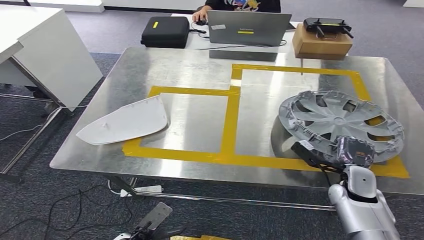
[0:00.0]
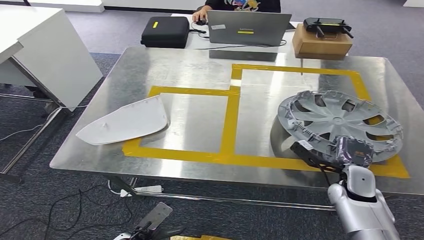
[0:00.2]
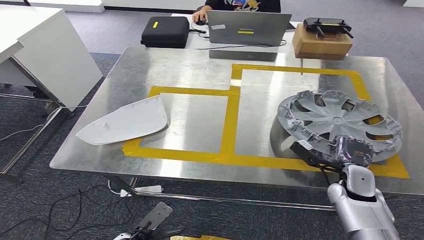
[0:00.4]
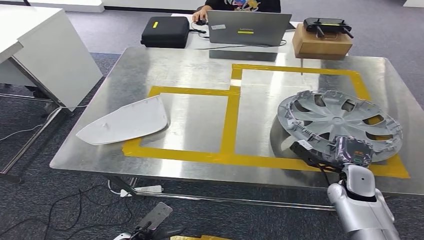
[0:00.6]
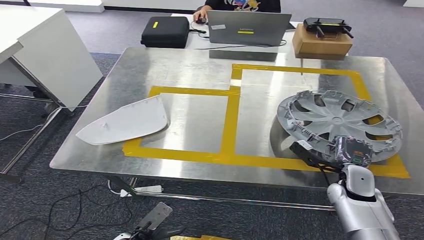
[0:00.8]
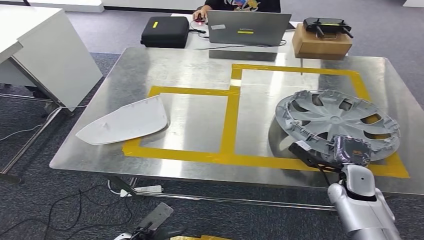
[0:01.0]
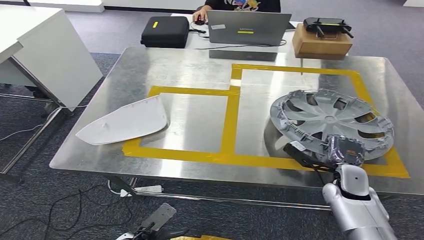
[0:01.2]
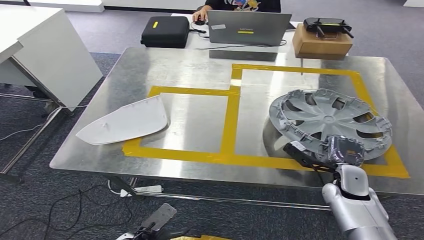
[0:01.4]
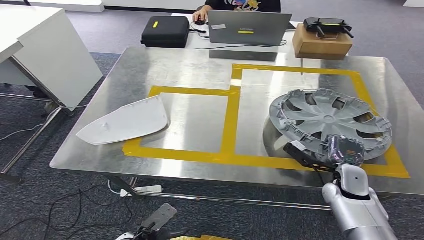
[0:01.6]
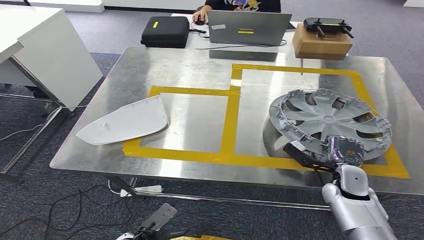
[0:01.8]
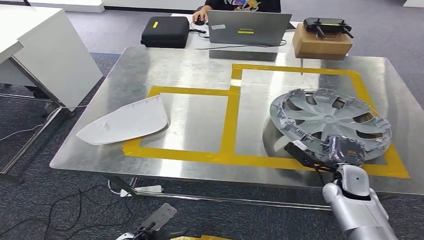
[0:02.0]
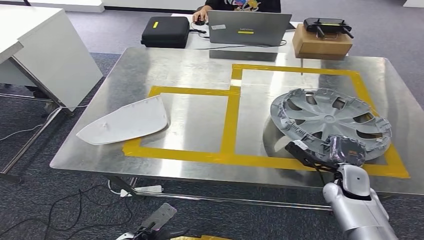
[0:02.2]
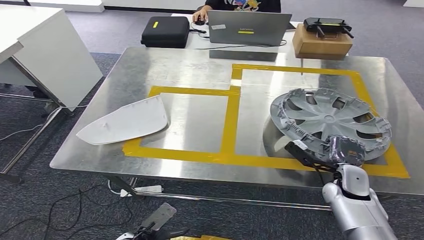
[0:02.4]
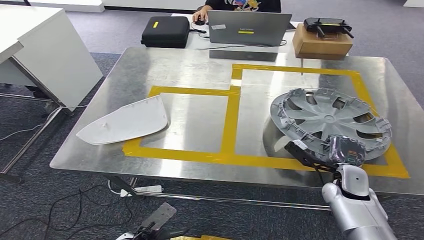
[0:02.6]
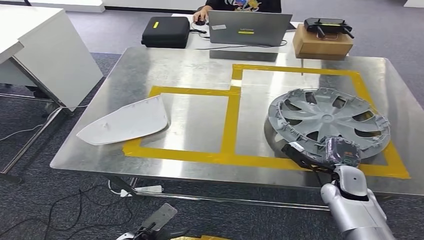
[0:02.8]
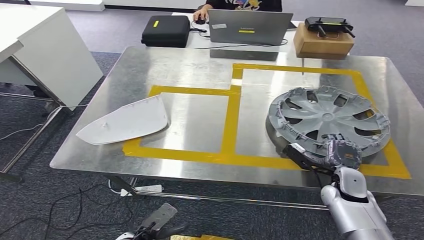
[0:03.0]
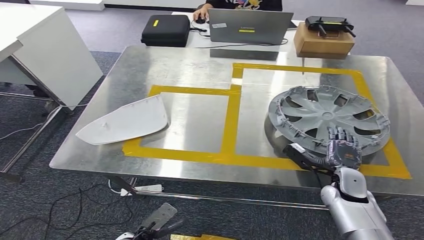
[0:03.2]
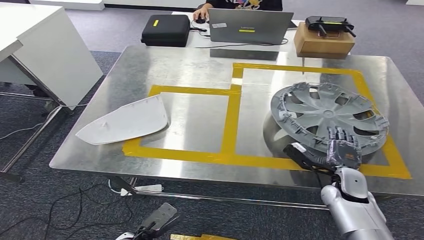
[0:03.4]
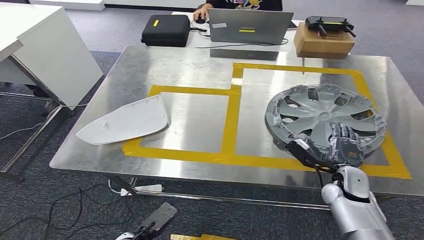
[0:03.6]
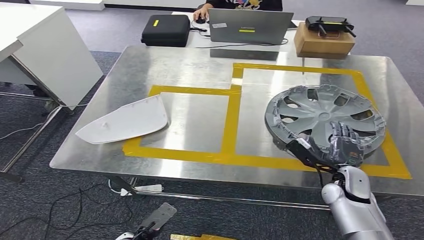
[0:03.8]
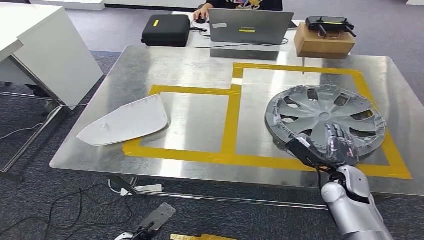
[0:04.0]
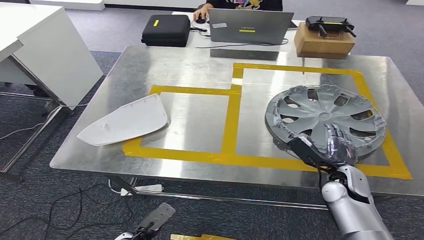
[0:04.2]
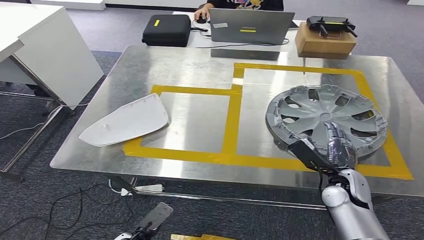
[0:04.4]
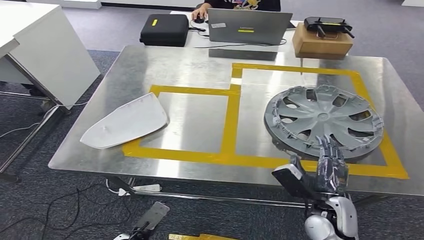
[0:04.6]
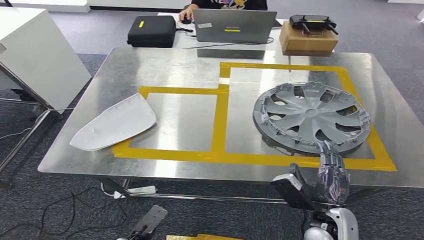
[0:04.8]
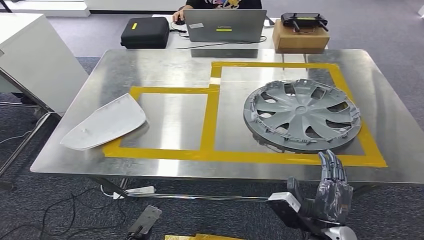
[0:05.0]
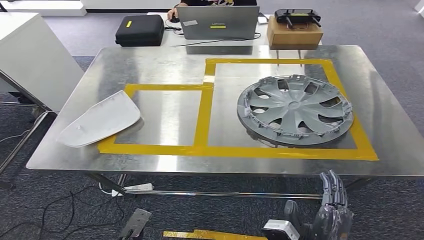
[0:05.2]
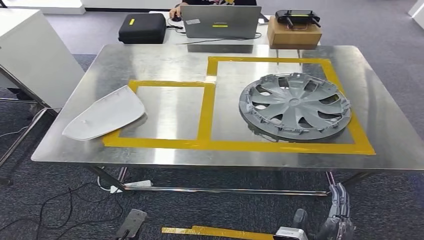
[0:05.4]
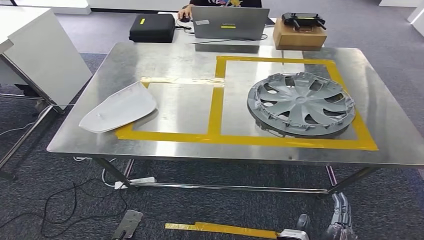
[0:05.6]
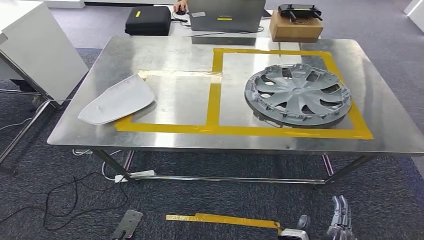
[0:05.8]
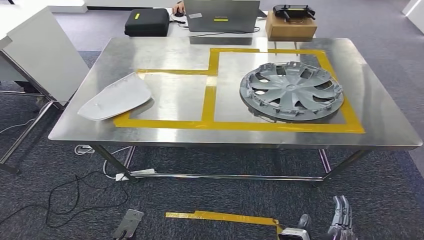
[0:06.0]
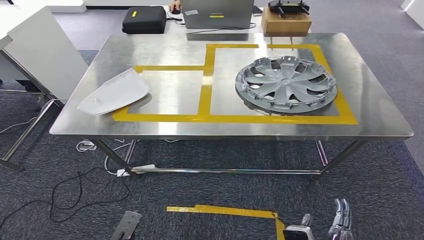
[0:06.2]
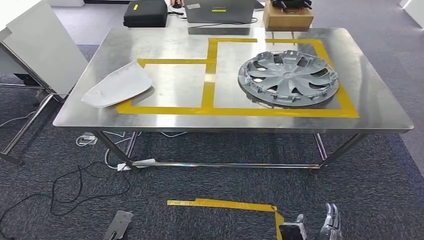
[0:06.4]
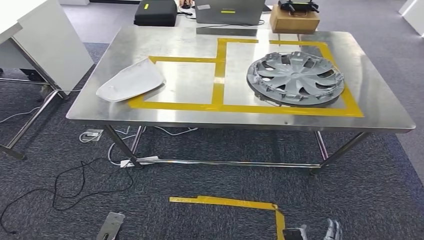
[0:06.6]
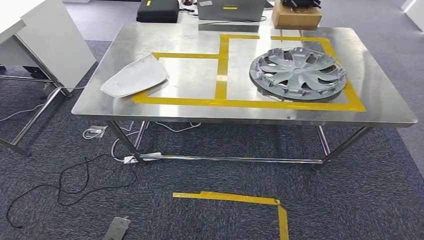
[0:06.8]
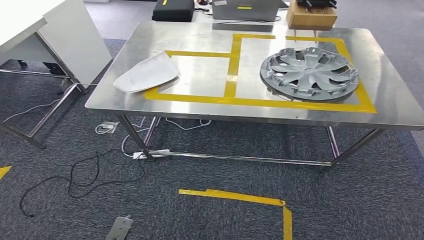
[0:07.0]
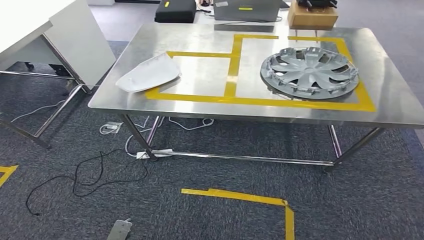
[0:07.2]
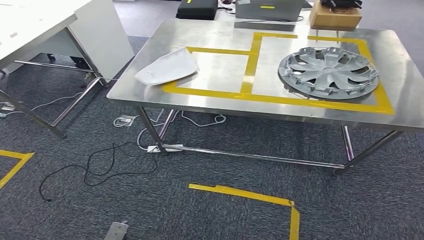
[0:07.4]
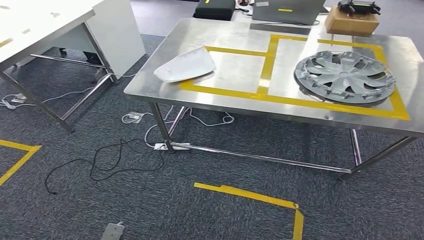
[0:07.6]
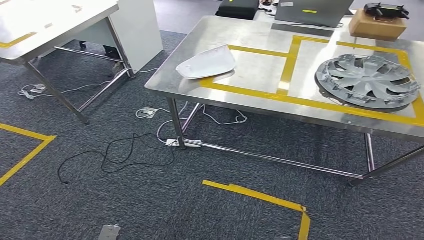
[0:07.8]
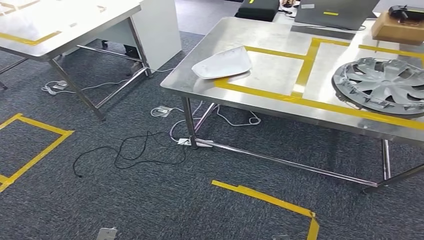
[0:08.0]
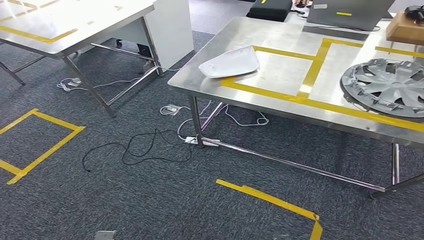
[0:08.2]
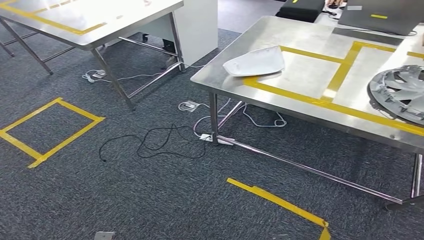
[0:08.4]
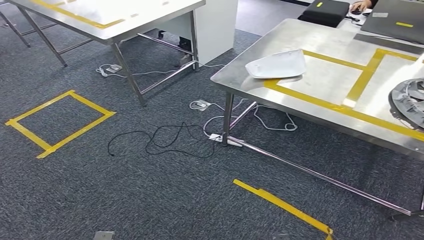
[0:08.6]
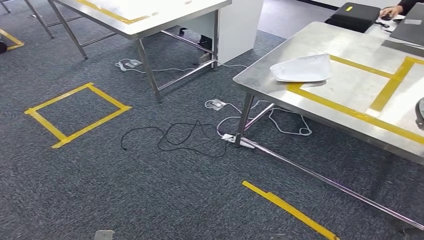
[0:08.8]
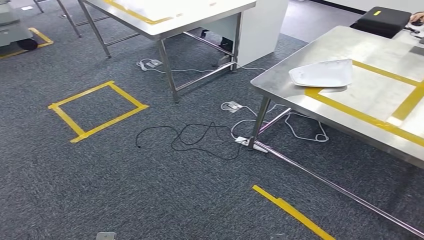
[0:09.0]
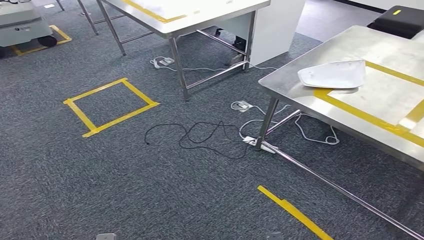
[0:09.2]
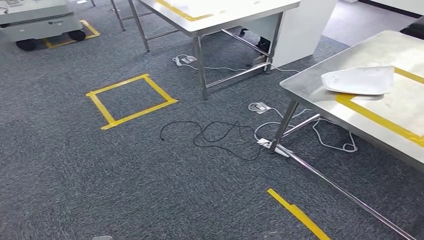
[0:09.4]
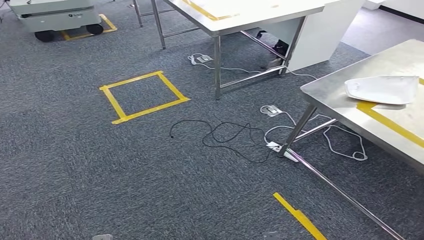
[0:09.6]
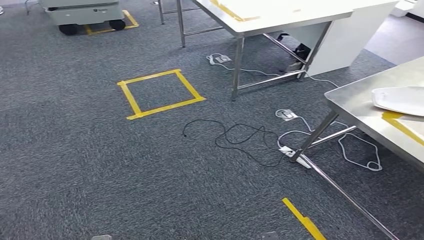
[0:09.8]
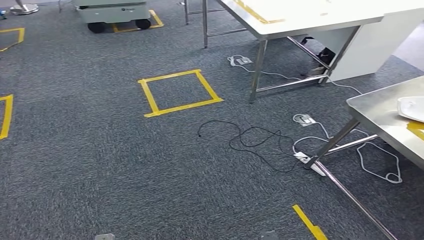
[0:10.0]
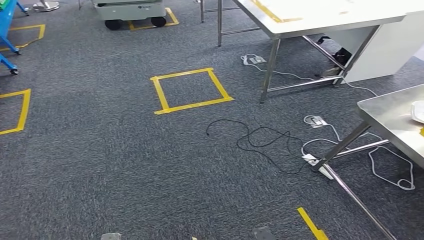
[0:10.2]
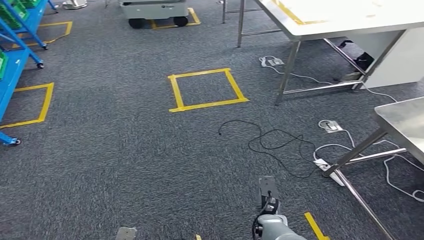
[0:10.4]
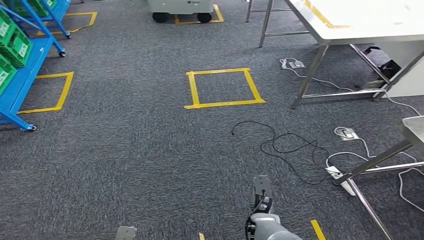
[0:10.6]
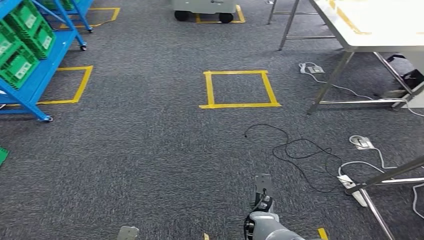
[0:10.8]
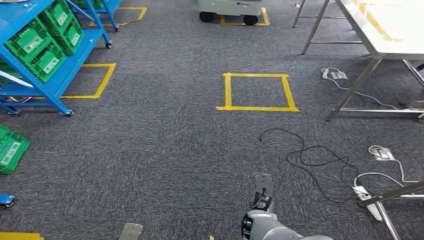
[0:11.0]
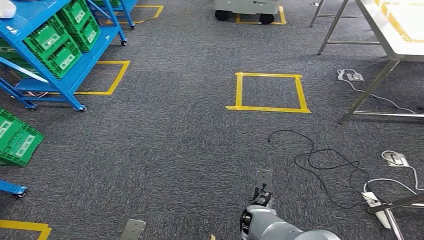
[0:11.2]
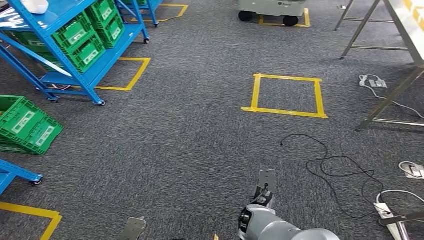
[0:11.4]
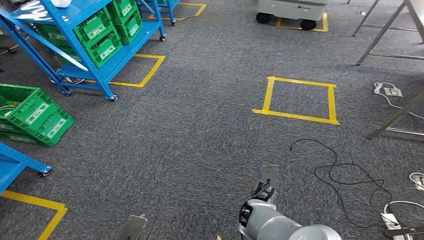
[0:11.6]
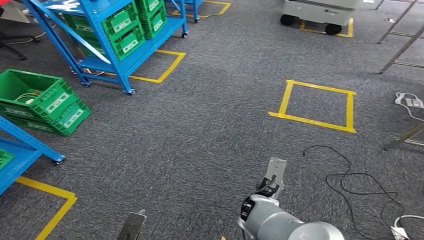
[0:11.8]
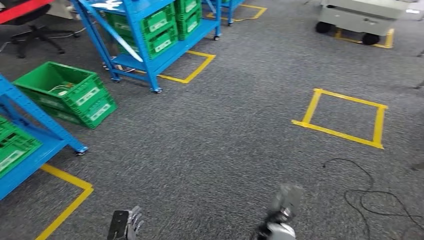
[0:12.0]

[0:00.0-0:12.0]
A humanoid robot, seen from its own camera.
Step, 0:00.0 to 0:03.8: Insert the small component into the corresponding slot on the workbench.
0:00.0 to 0:01.6: The hands make only small movements.
0:01.6 to 0:03.0: Both hands stay about where they are.

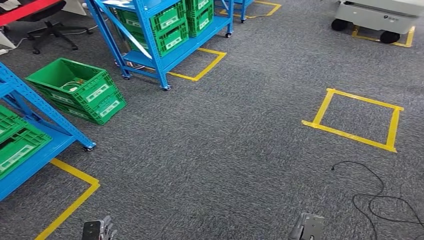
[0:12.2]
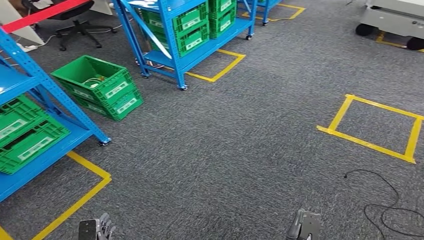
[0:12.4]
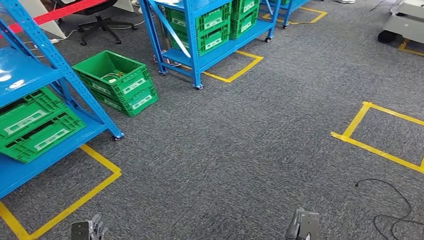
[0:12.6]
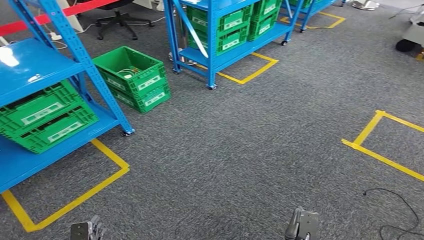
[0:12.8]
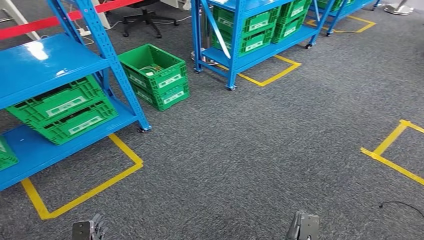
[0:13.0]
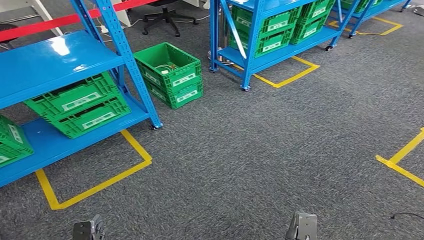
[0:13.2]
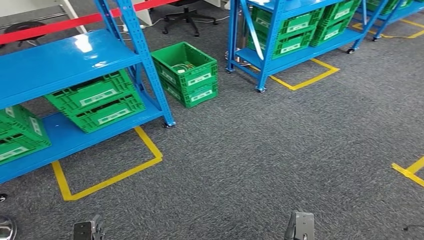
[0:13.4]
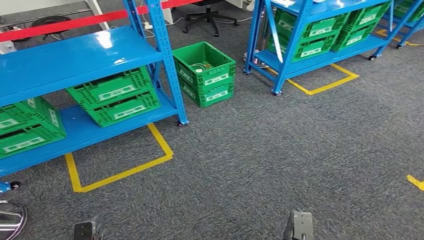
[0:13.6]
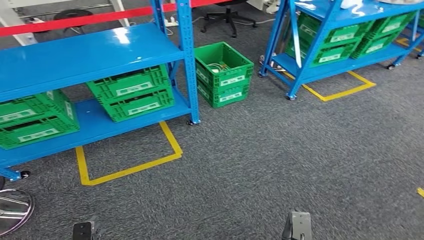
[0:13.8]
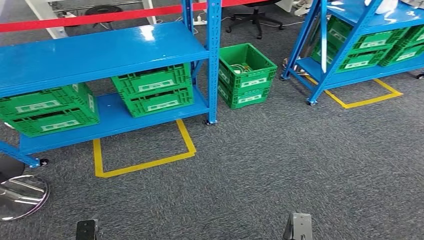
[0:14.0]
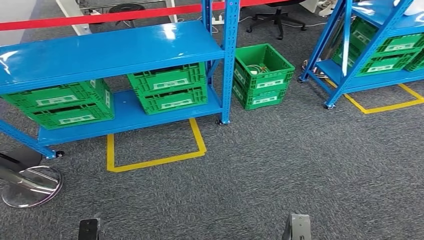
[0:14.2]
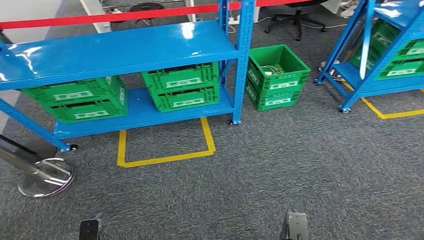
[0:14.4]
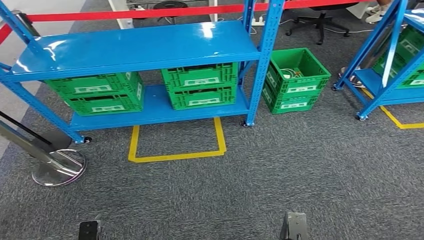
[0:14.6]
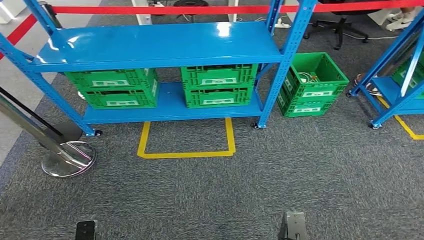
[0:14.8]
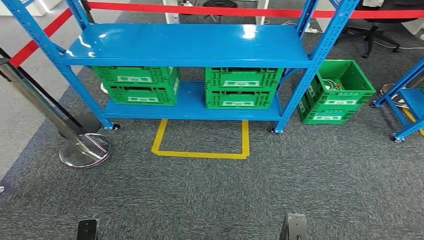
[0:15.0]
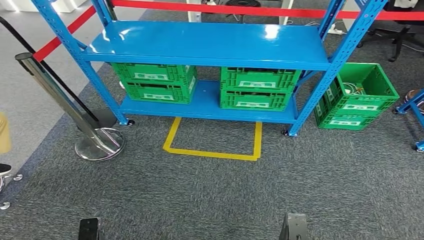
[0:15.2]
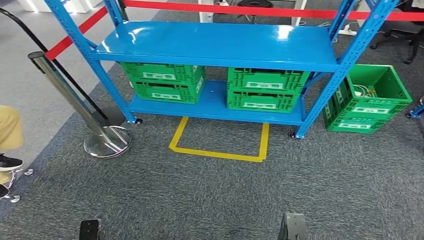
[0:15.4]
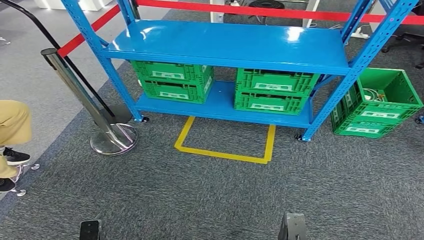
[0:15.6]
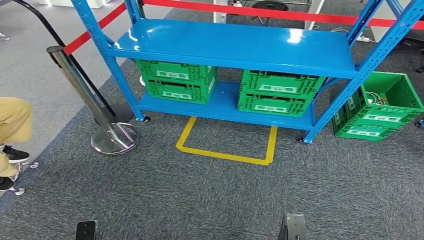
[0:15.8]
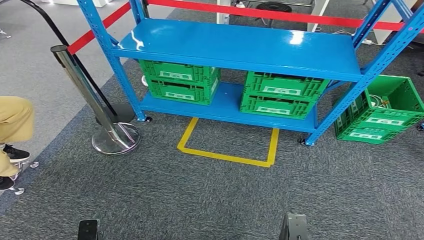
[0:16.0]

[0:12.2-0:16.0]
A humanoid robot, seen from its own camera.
Step, 0:12.2 to 0:16.0: Move to the initial position of the workbench.
